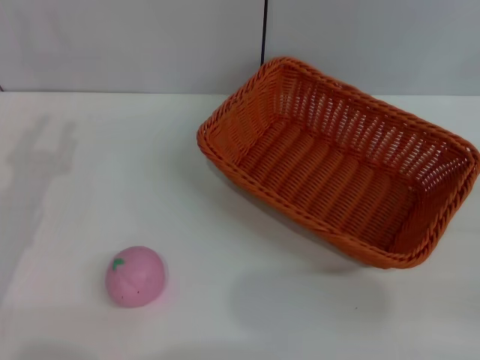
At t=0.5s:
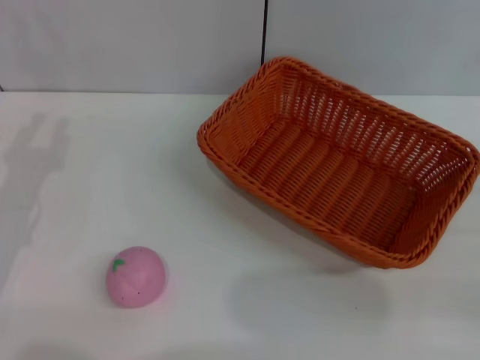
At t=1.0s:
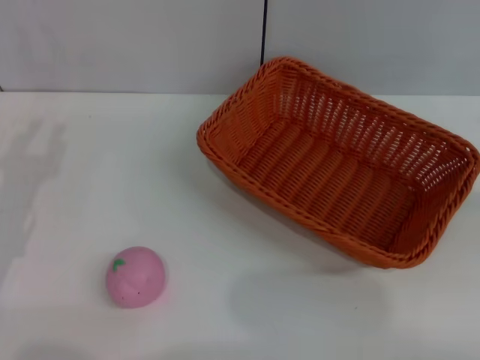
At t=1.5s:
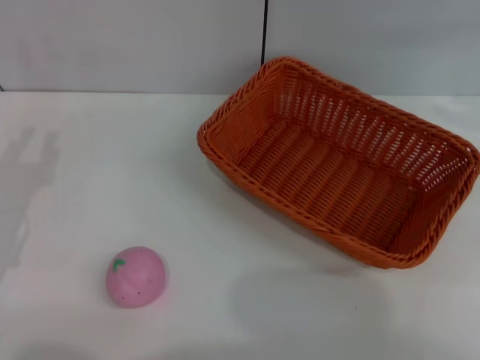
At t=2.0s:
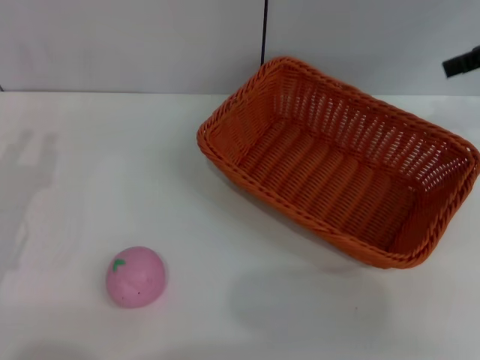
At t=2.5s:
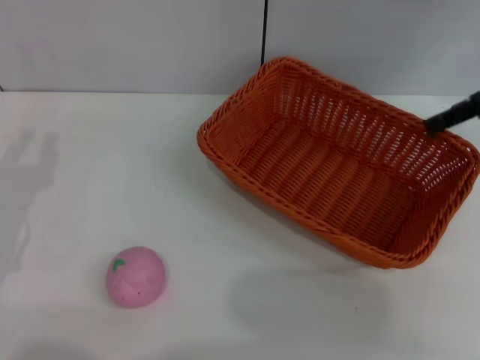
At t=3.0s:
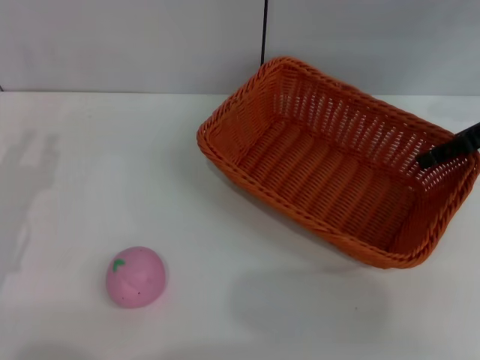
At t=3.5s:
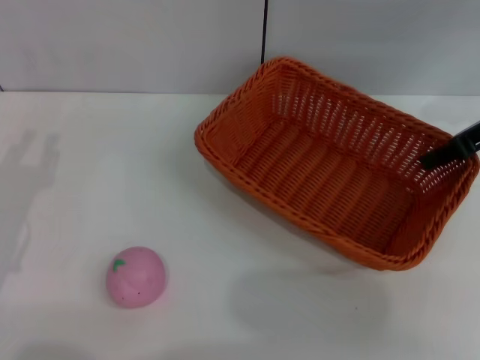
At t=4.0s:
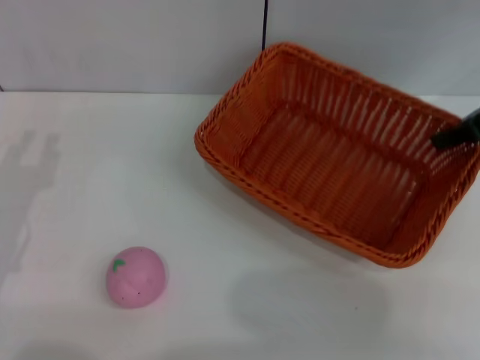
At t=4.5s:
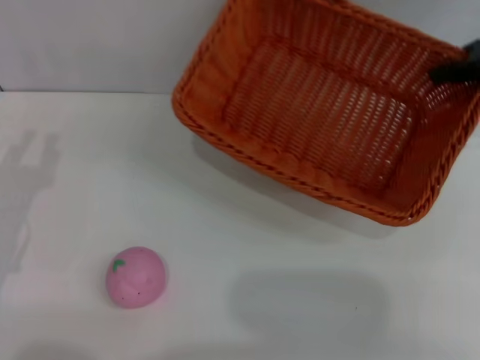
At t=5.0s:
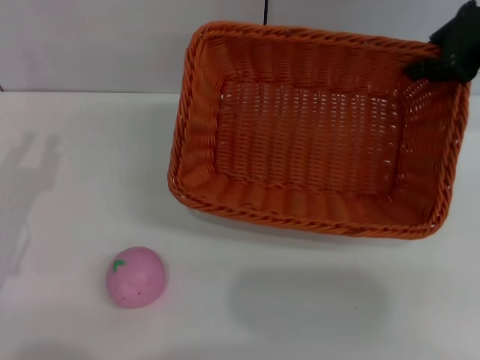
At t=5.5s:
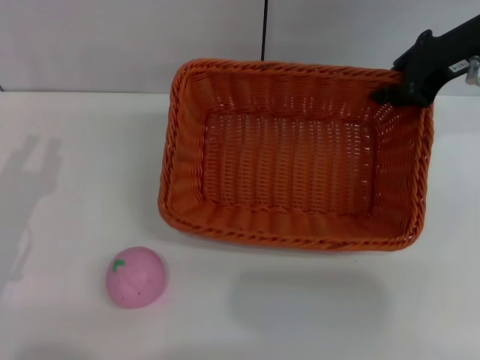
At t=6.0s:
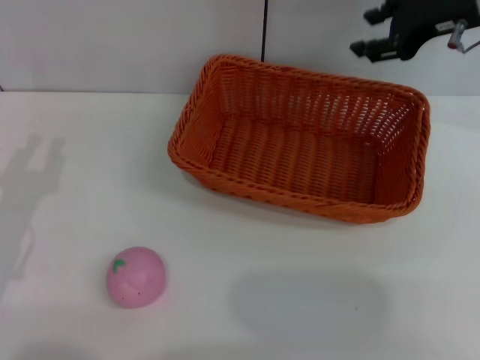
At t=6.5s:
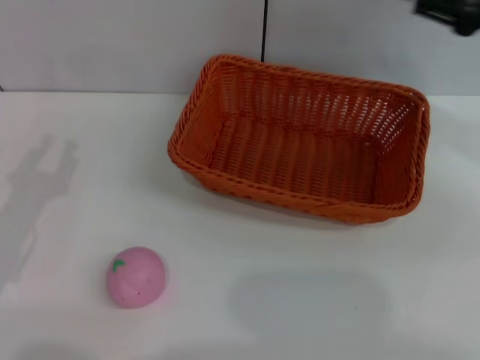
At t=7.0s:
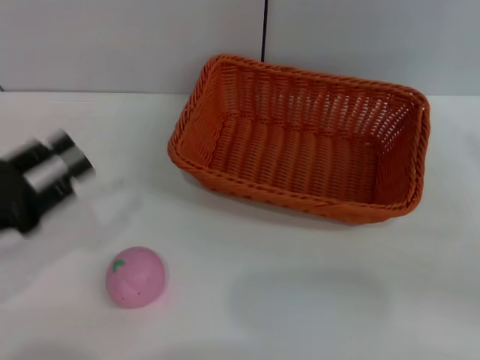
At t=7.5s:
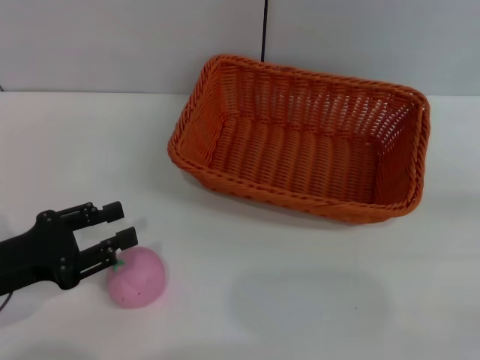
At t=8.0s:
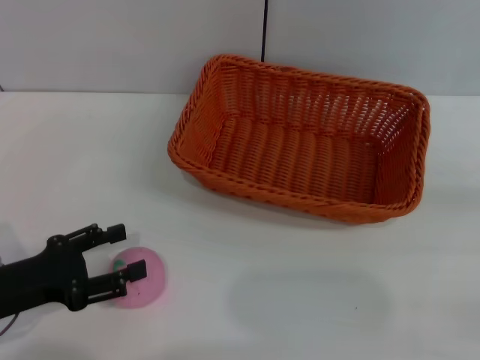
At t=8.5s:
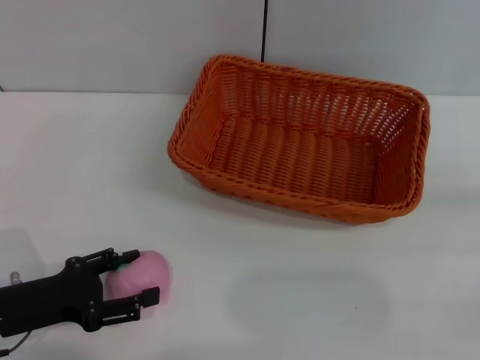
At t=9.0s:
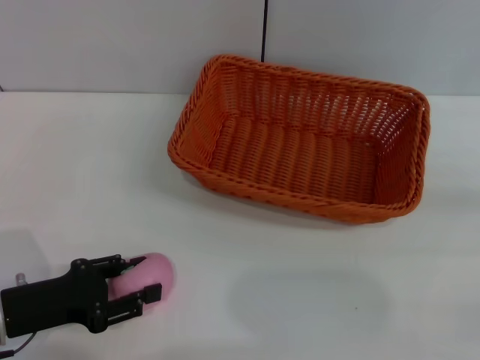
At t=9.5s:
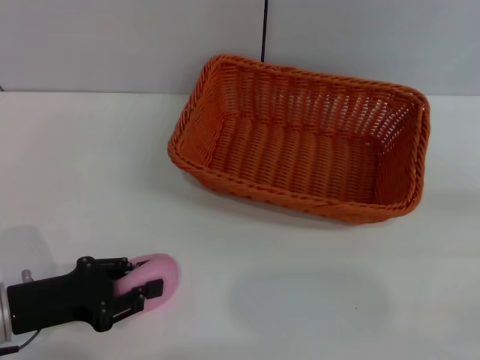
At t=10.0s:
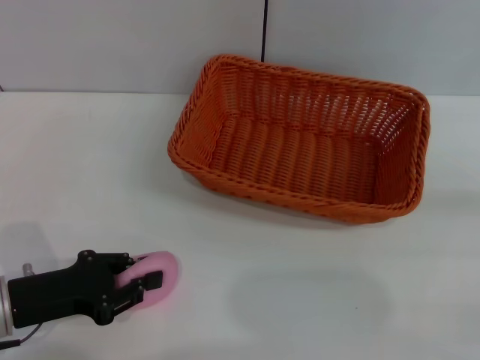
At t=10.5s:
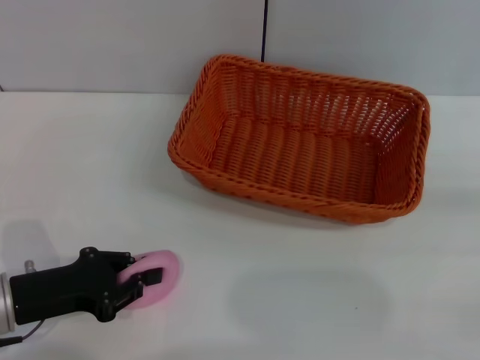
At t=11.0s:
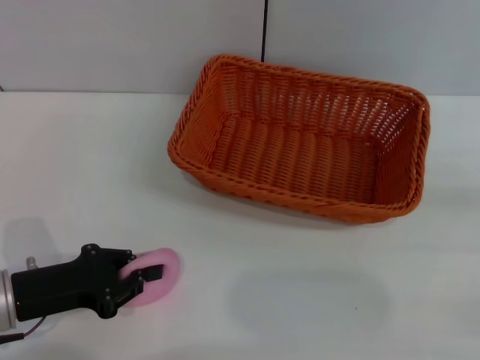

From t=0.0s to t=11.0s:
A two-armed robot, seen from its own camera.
Step, from t=0.0s to t=4.0s: Pick up the light basket with the right gripper.
Step, from t=4.5s to t=5.5s: Place the light basket in the center of view with the right gripper.
From t=2.0s to t=3.5s: The right gripper shifts roughly 10 cm downward, and closes.
From t=3.5s to t=5.5s: The right gripper heads to the left, covering roughly 5 cm, and closes its fingers.
From t=5.5s to t=7.5s: The right gripper heads backward, to the right and downward, covering some 30 cm, and opens.
From t=7.5s to t=9.0s: The left gripper opens its fingers.
From t=9.0s to t=11.0s: The left gripper closes its fingers.

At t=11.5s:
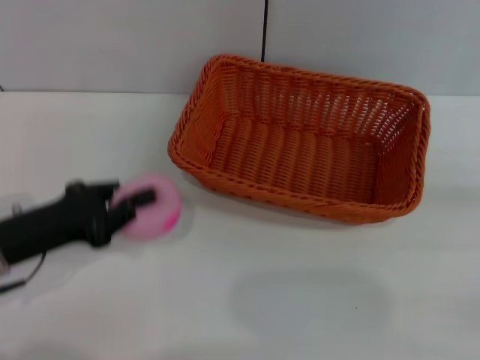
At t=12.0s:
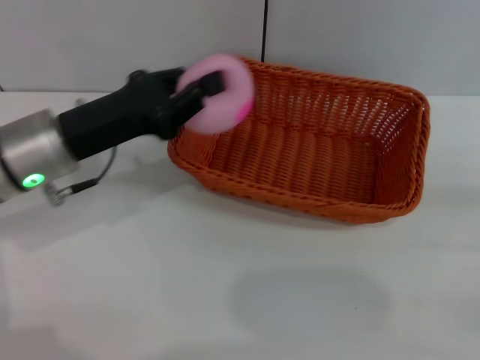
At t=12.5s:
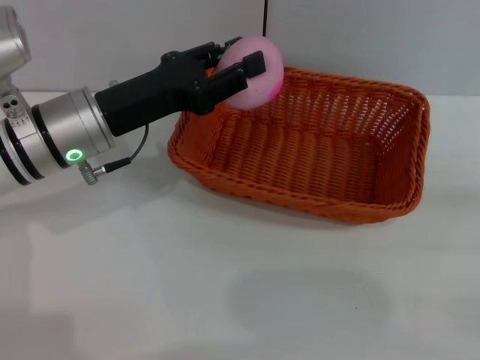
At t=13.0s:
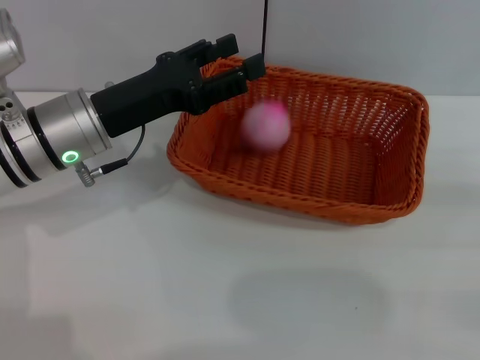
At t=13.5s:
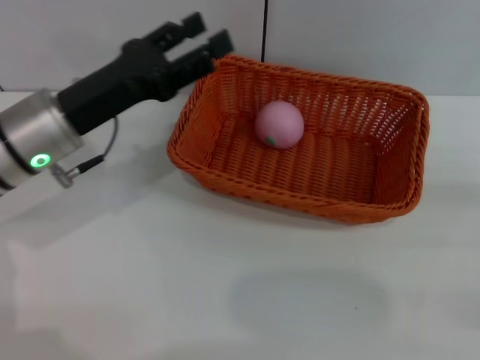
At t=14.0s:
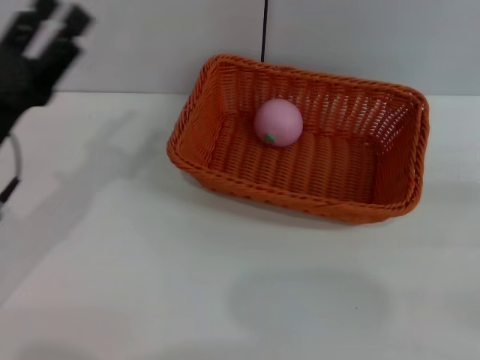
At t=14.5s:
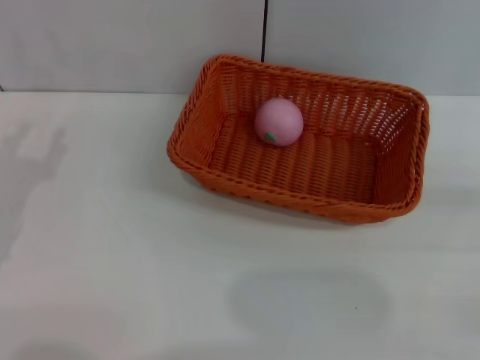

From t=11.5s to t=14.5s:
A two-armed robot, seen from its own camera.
Step, from t=11.5s to t=13.0s: Place the peach into the basket with the left gripper.
From t=11.5s to t=13.0s: The left gripper moves to the right, forward and upward, some 15 cm, and opens up.
From t=13.0s to t=14.5s: The left gripper heads to the left and backward, covering roughly 15 cm.
